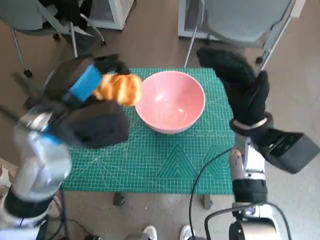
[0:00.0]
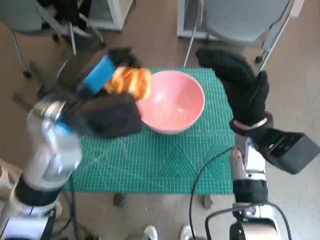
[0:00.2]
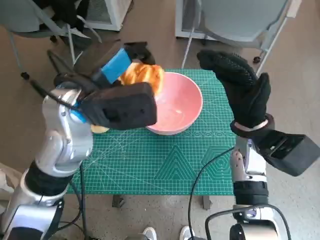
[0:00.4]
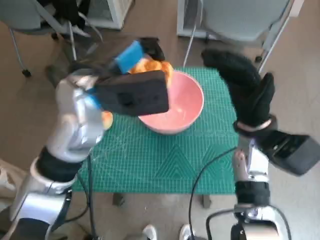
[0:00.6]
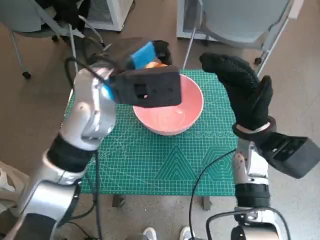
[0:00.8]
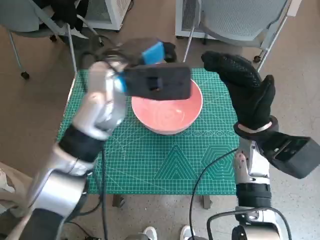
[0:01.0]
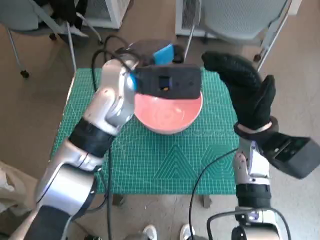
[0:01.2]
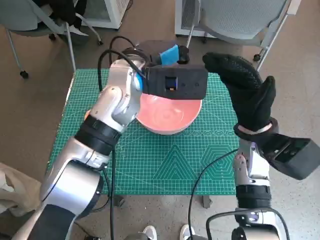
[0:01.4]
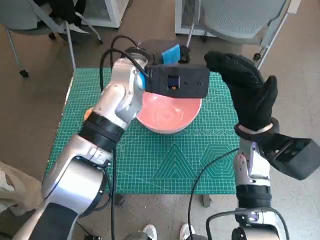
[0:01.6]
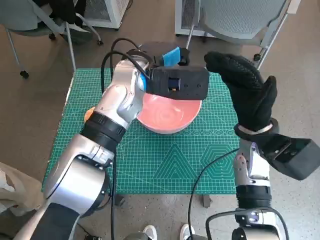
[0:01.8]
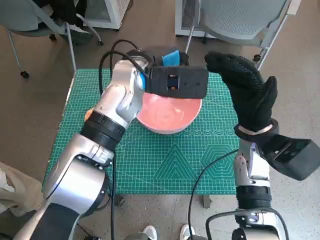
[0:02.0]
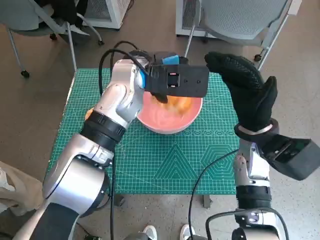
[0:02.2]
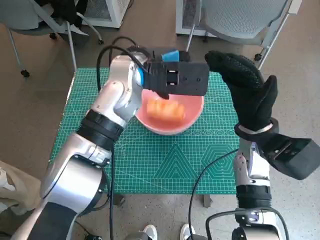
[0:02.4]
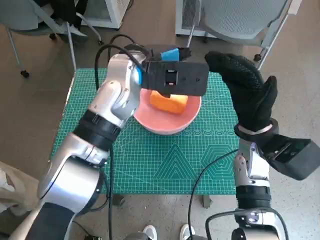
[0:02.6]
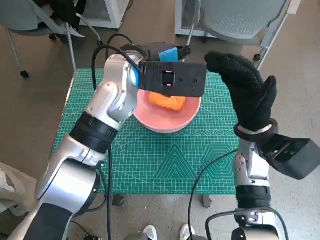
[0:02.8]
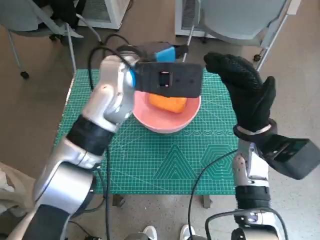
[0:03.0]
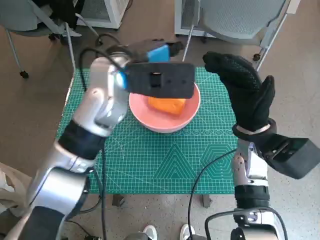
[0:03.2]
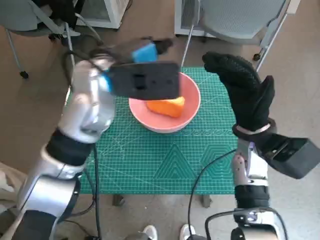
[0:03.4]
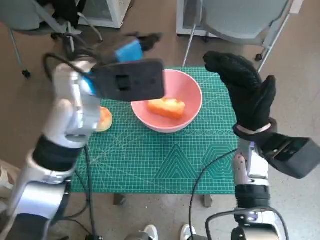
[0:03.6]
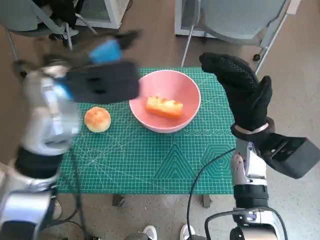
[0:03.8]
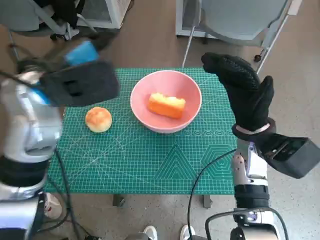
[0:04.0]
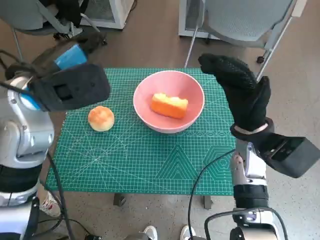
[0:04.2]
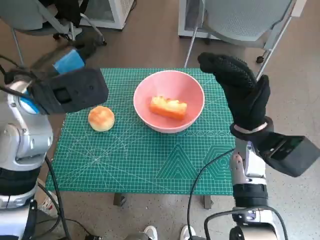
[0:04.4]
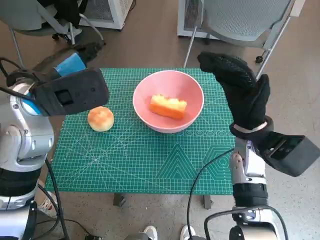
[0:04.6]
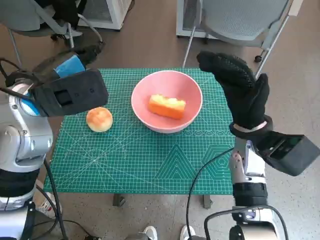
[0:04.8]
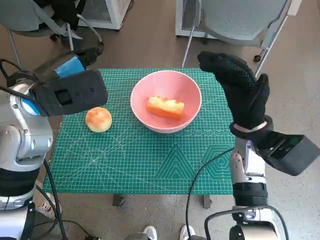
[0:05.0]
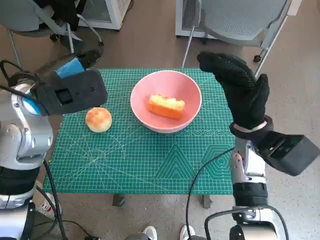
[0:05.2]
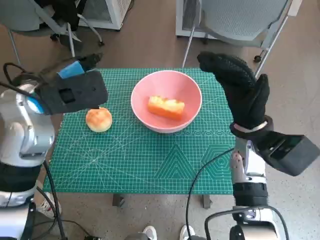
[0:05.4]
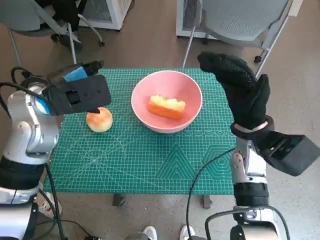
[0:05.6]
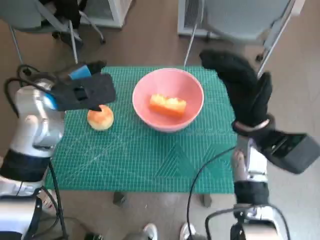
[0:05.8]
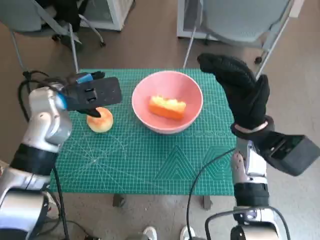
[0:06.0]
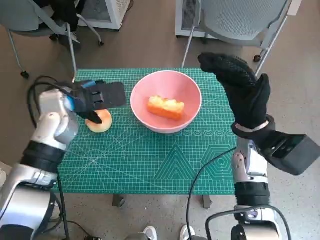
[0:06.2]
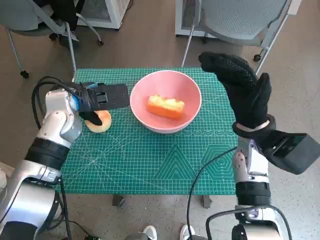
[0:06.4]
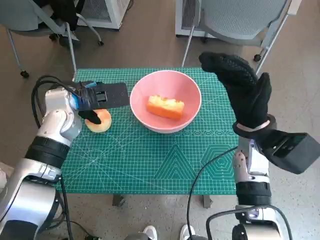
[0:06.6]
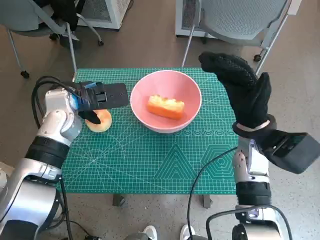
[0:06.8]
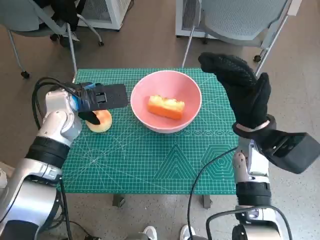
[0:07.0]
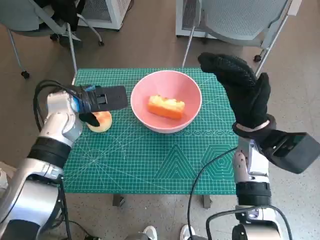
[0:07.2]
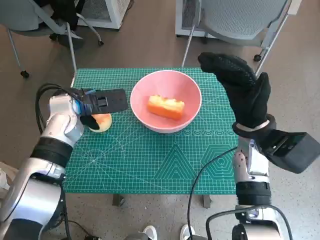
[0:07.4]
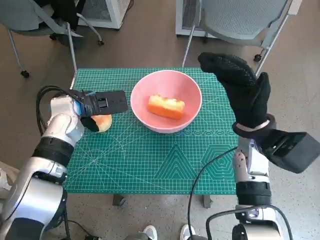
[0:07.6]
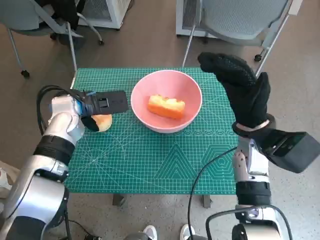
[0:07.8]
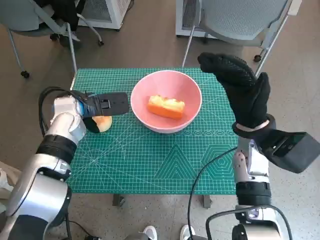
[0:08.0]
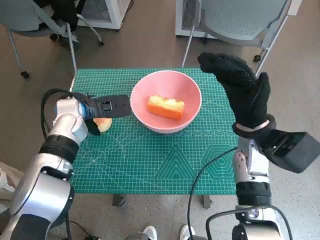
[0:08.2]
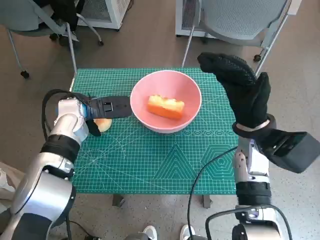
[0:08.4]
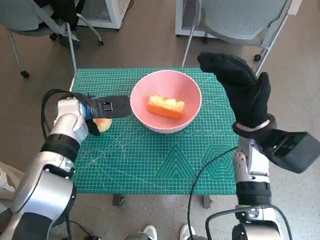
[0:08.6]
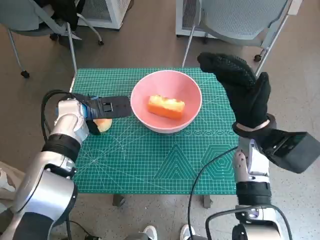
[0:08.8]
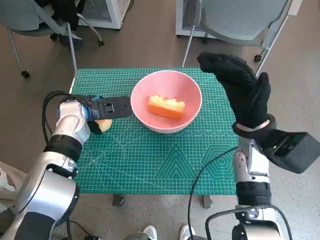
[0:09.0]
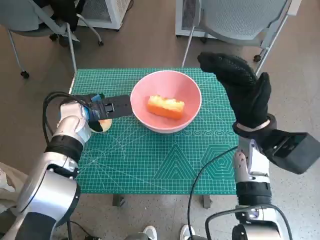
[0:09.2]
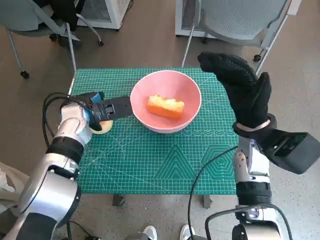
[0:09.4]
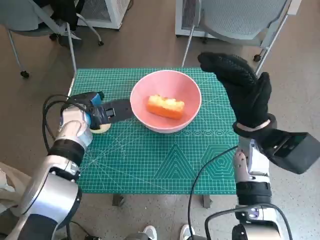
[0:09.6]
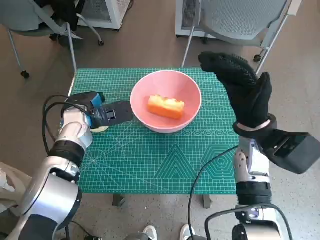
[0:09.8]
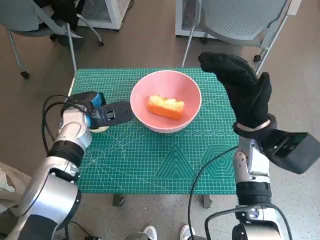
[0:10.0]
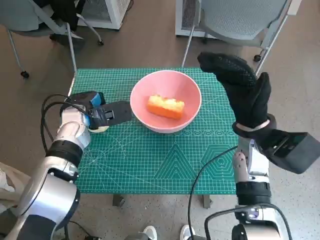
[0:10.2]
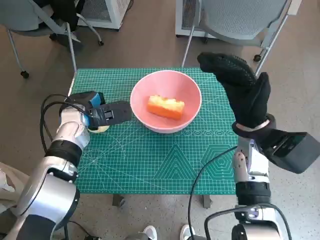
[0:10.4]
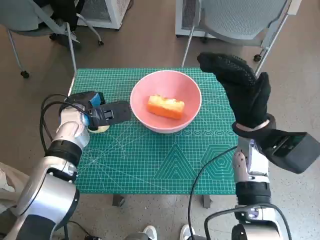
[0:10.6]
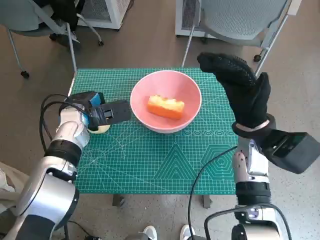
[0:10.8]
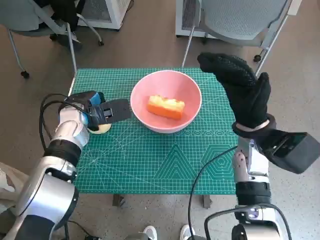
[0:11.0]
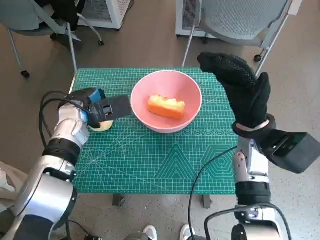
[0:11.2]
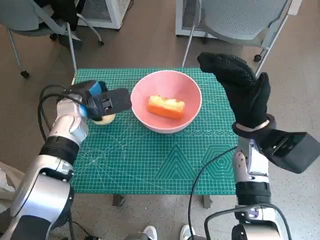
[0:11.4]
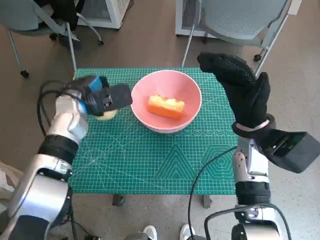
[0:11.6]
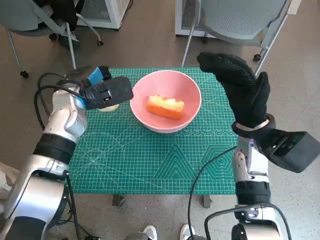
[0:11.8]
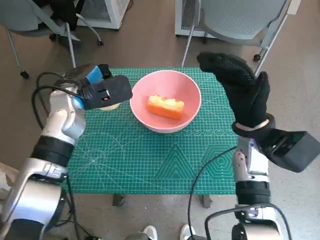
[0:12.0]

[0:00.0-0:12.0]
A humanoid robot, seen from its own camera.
Step, 0:00.0 to 0:02.4: Place the long bread in pink bowl with left hand.
Step, 0:02.6 to 0:09.8: Grasp the round bread with left hand.
0:00.0 to 0:01.6: The left hand is displaced forward and to the right by about 15 cm.
0:01.6 to 0:03.0: The hands stay close to where they were, moving slightly.
0:03.0 to 0:04.4: The left hand is displaced to the left and backward by roughly 15 cm.
0:04.4 to 0:06.0: The left hand heads downward, covering some 5 cm.
0:06.0 to 0:07.6: The left hand moves downward, about 5 cm.
0:07.6 to 0:10.4: The hands make only small movements.
0:10.4 to 0:12.0: The left hand goes approximately 5 cm upward.

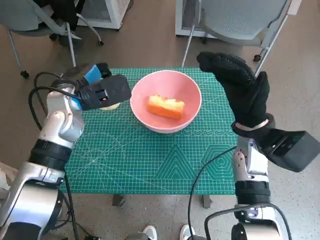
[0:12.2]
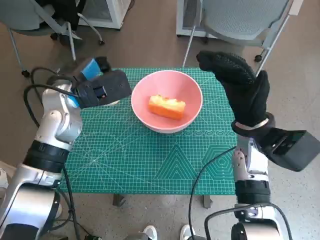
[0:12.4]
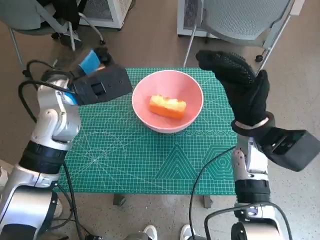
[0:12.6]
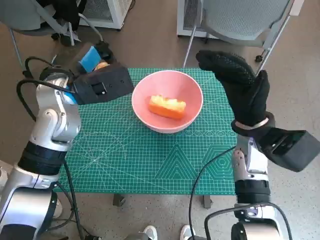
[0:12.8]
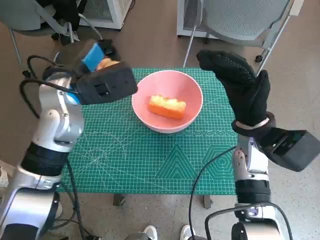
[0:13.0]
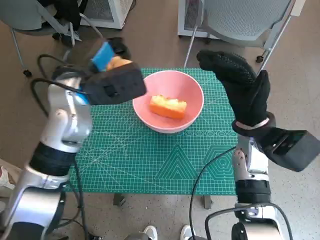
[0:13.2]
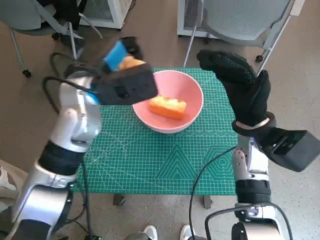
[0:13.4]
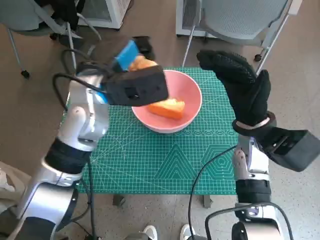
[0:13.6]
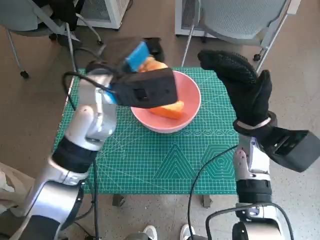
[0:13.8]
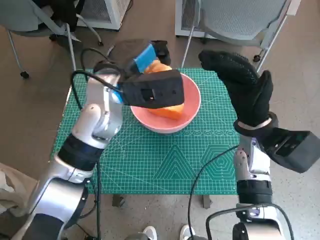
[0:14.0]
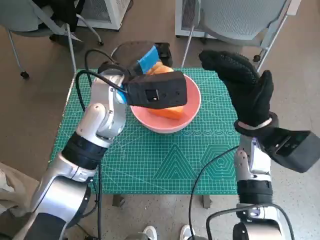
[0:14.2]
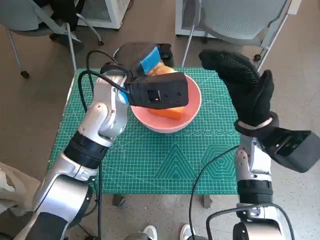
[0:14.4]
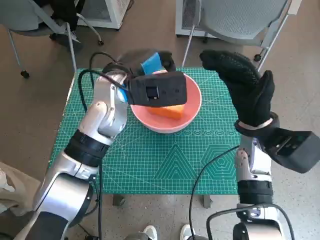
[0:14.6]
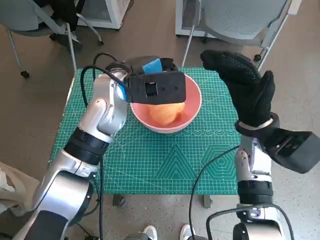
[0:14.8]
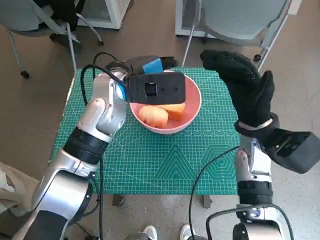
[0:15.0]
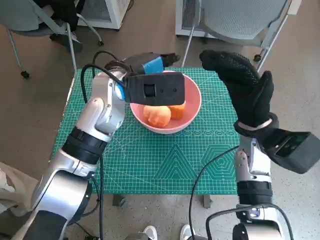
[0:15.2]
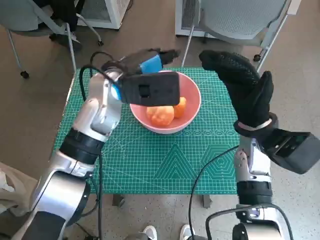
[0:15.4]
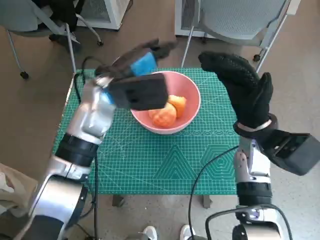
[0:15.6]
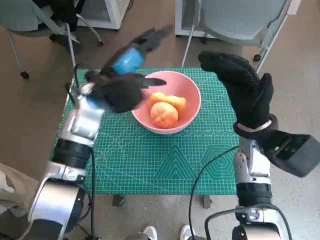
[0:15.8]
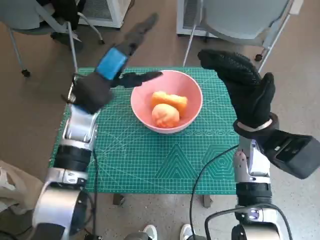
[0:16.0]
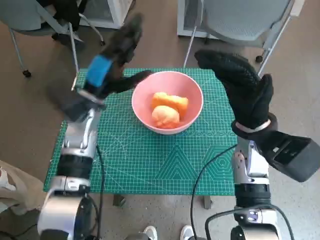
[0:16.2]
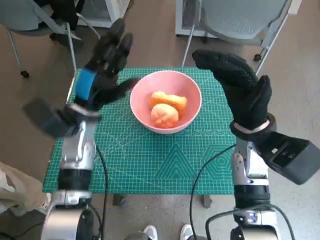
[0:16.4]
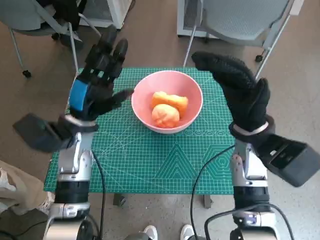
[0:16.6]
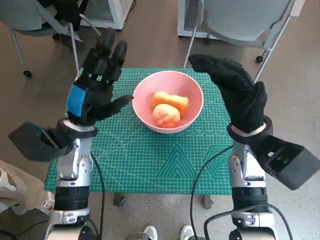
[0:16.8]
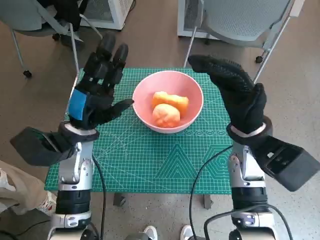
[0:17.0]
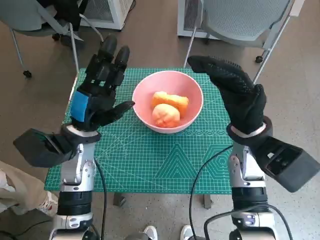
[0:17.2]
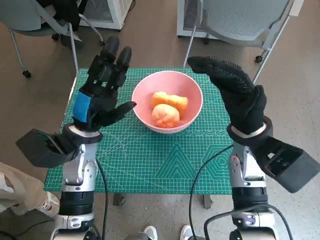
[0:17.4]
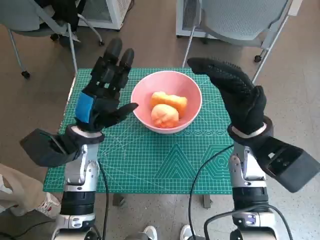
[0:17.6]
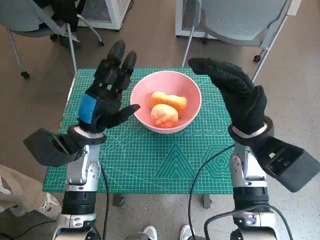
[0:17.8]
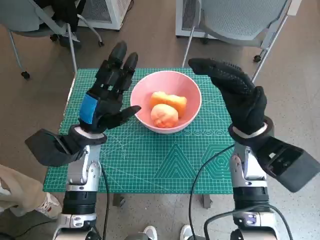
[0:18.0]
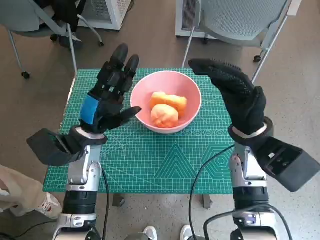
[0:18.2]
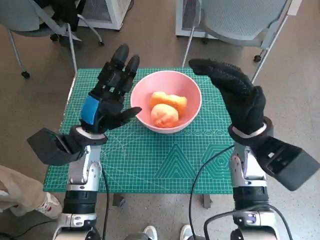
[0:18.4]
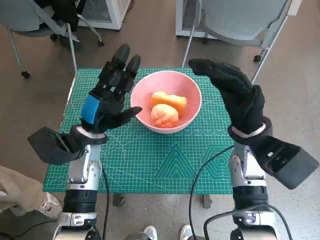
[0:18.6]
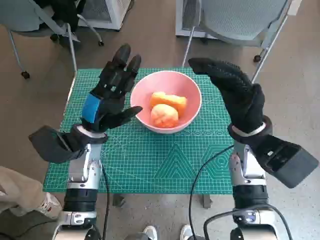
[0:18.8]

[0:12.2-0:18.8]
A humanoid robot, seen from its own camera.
Step, 0:12.2 to 0:15.4: Place the round bread in pink bowl with left hand.
0:12.2 to 0:13.8: The left hand heads to the right and upward, covering some 10 cm.
0:15.4 to 0:17.2: The left hand goes some 15 cm downward, to the left and backward.
0:17.2 to 0:18.8: There are only small adjustments of the hands.

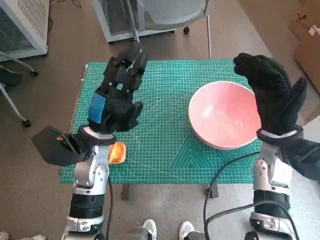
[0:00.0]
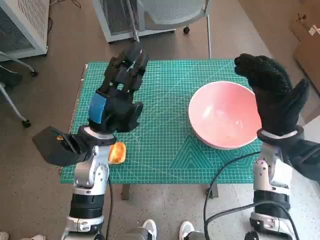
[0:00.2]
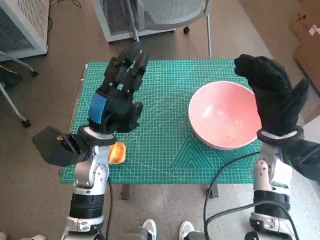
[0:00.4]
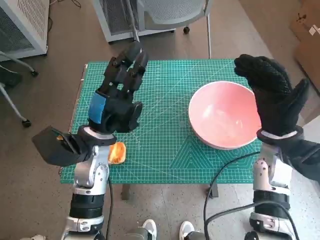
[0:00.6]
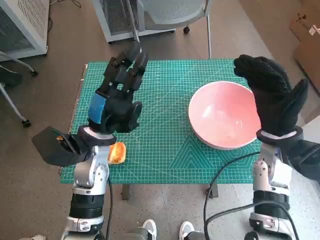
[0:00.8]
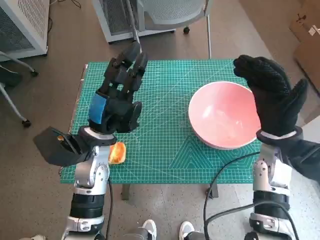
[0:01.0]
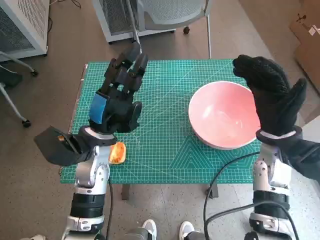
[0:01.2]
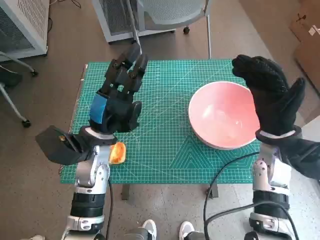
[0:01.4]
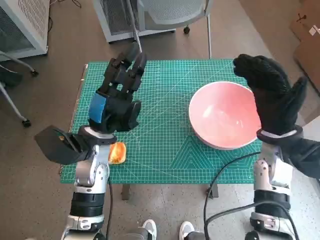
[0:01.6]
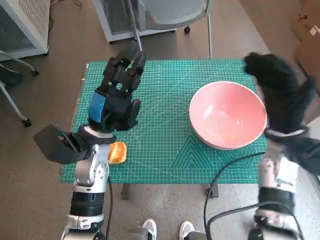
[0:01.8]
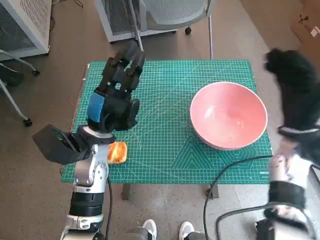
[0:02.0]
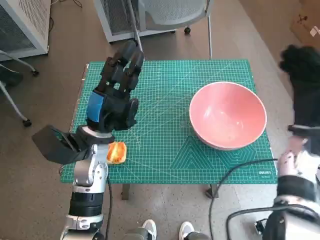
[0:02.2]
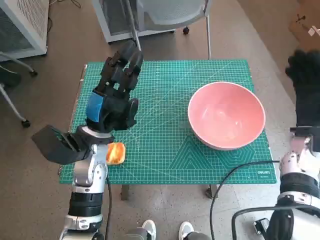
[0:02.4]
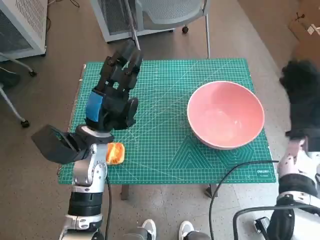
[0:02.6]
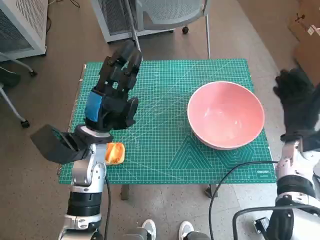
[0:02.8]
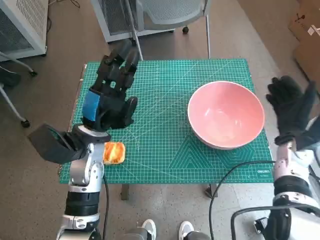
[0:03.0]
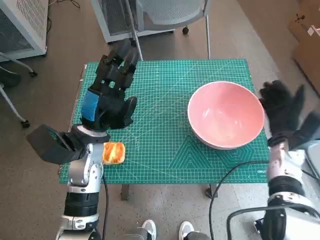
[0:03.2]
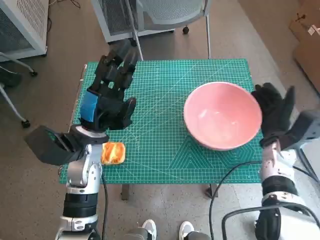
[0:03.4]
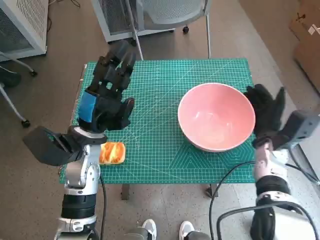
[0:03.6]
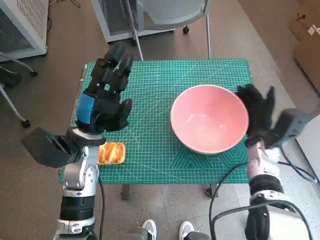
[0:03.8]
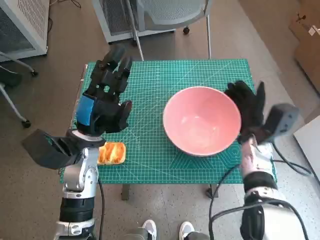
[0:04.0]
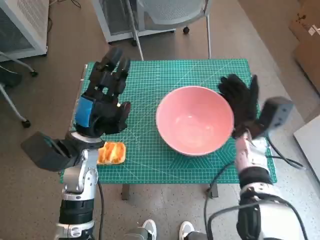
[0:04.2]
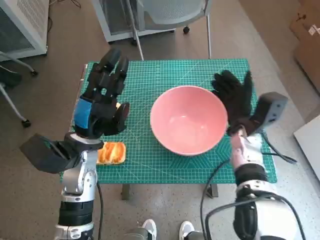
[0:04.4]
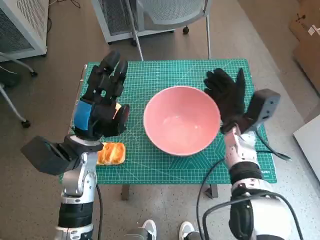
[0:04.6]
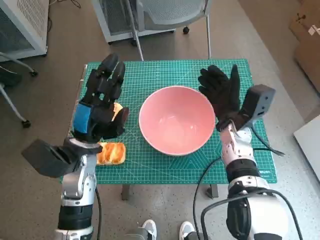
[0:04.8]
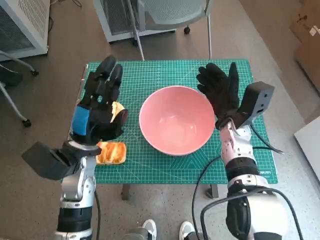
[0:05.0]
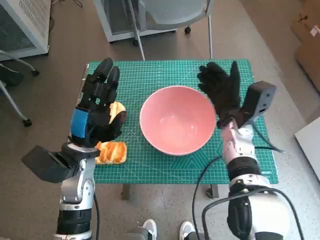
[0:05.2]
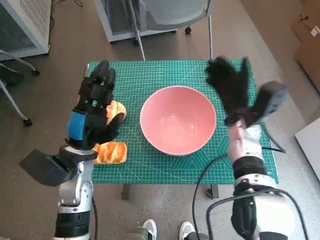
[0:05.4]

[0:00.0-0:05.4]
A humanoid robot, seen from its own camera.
Step, 0:00.0 to 0:05.2: Move the pink bowl to the center of table with right hand.
0:01.4 to 0:02.8: The right hand travels to the right by approximately 5 cm.
0:02.8 to 0:04.0: The right hand travels to the left by about 10 cm.
0:04.0 to 0:05.4: The right hand ends up some 5 cm from where it was.
